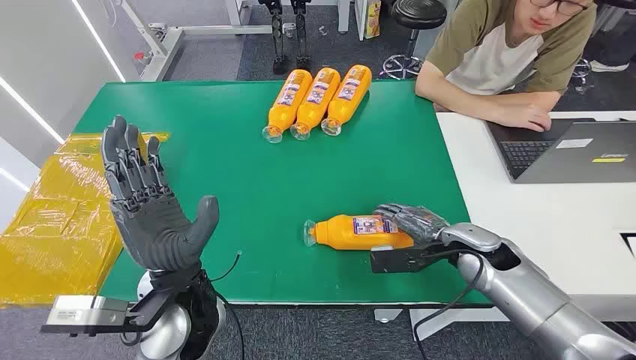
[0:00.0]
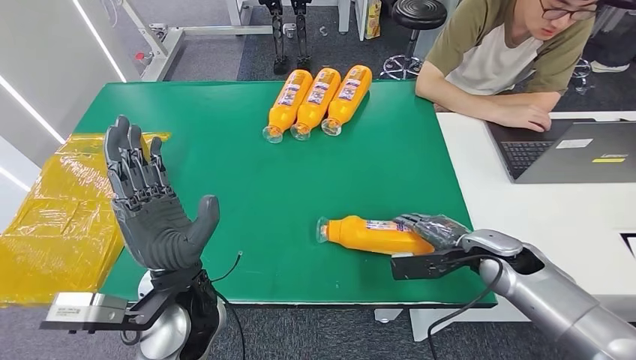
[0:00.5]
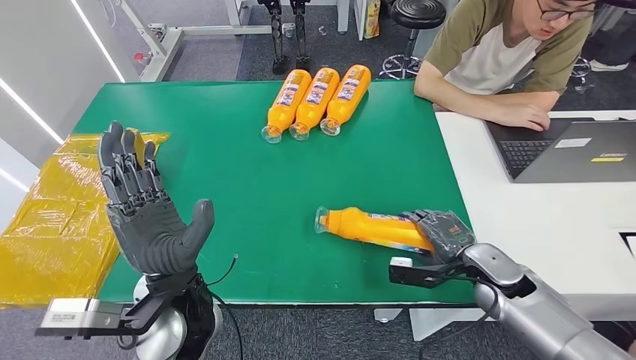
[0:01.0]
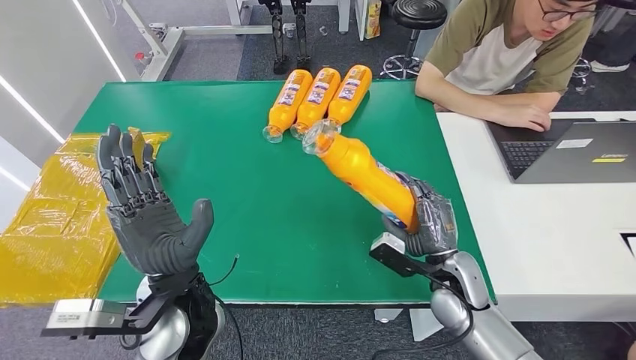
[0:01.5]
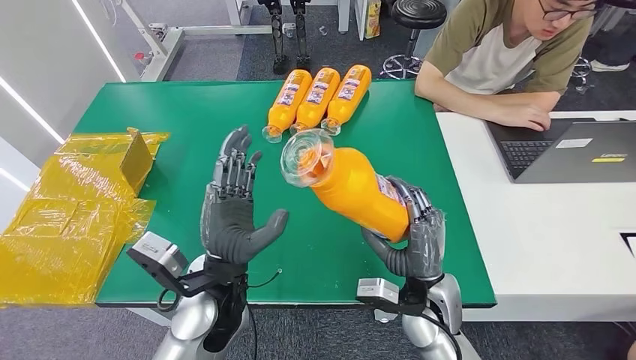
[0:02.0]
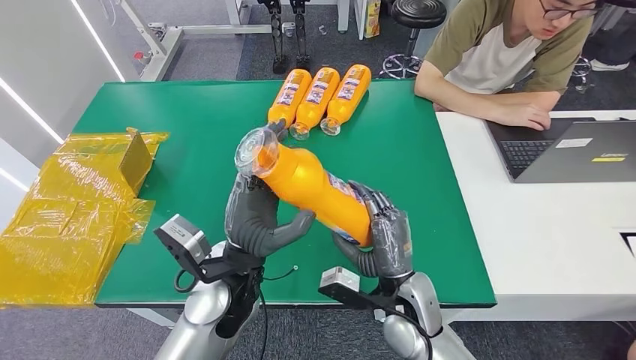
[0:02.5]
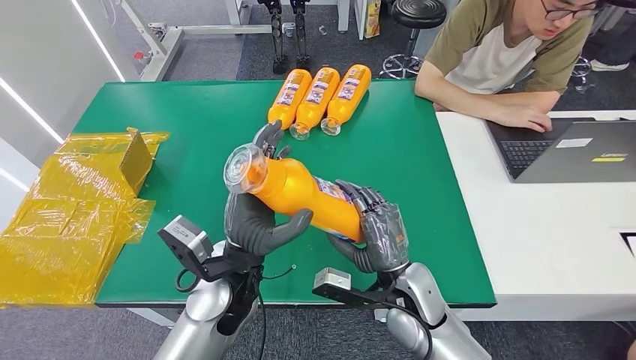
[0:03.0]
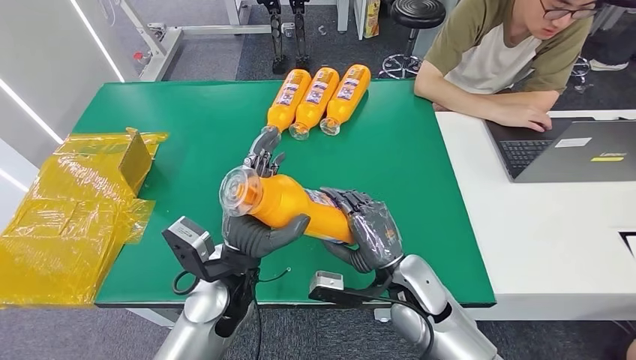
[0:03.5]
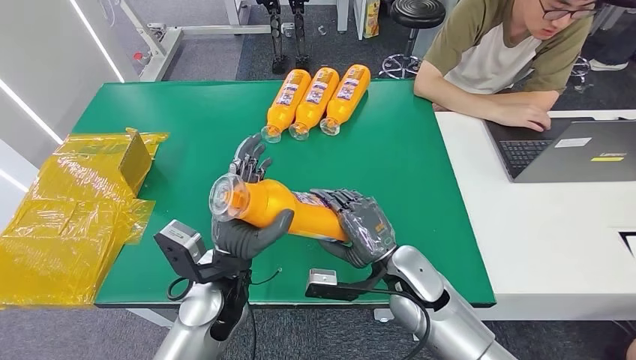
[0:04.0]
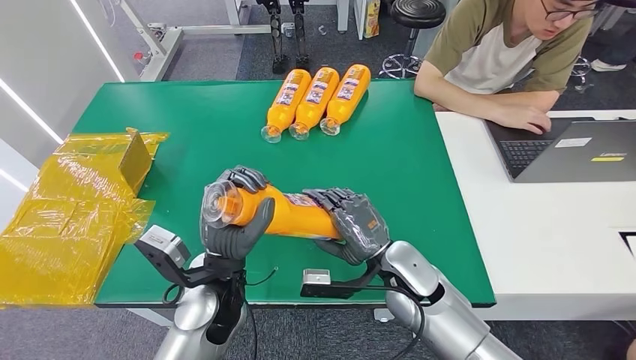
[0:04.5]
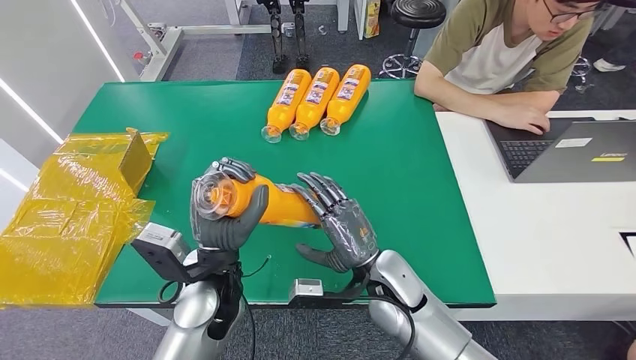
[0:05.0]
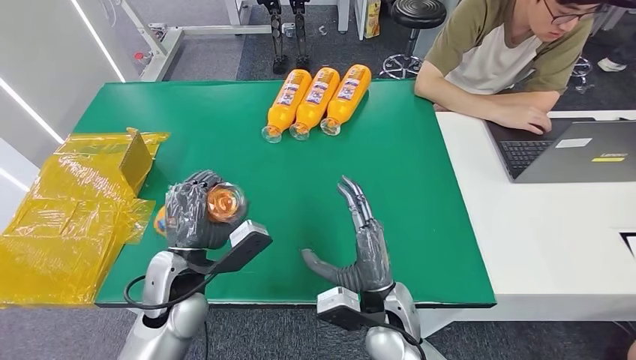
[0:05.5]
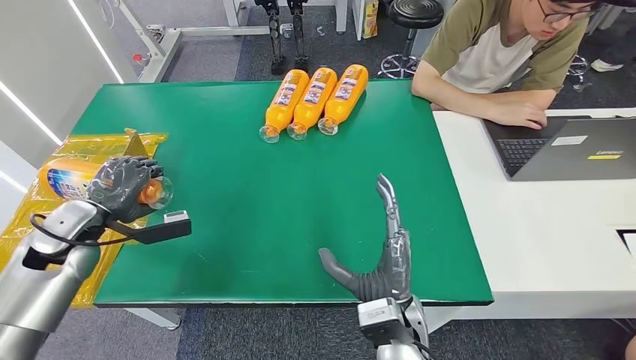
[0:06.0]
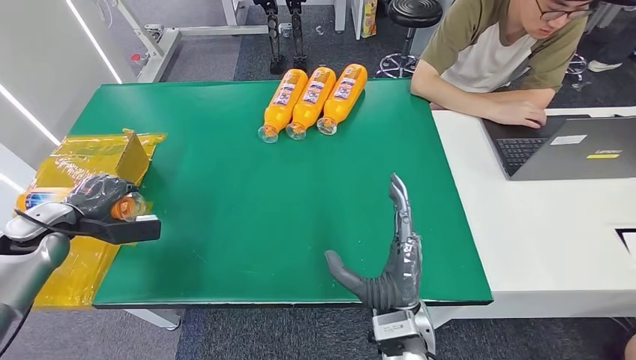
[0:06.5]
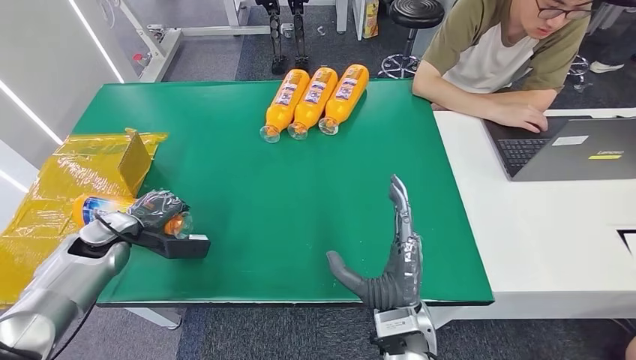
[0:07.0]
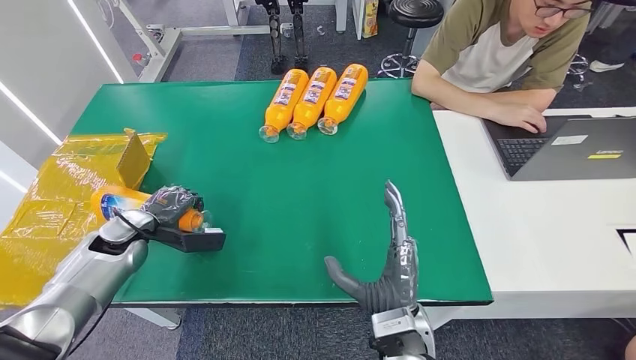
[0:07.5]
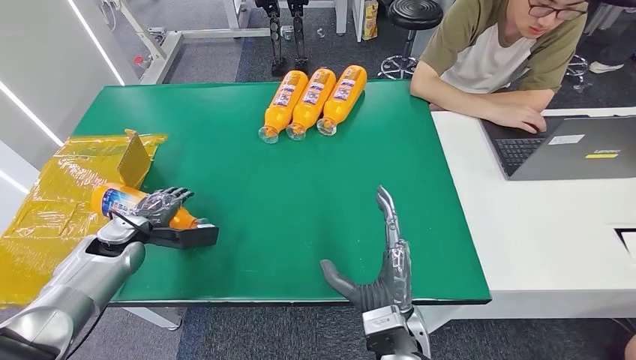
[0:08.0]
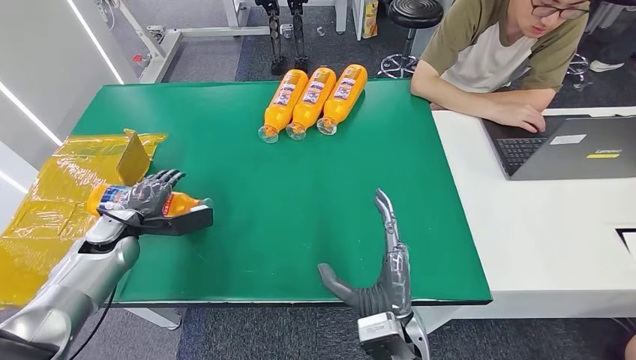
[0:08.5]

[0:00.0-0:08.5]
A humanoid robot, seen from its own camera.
Step, 0:00.0 to 0:02.5: Pick up the bottle from the table.
Step, 0:03.0 to 0:08.5: Turn the bottle to the front side.
0:06.5 to 0:08.5: The left hand shifts about 10 cm to the right and downward.
